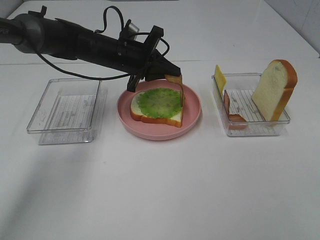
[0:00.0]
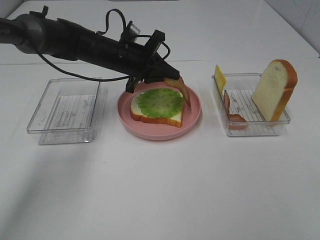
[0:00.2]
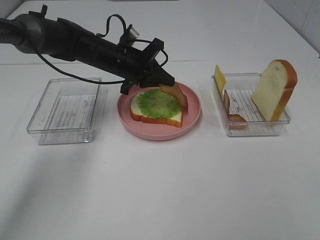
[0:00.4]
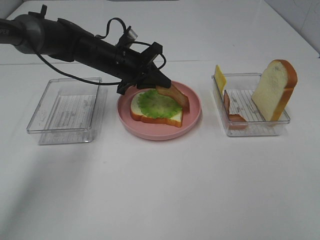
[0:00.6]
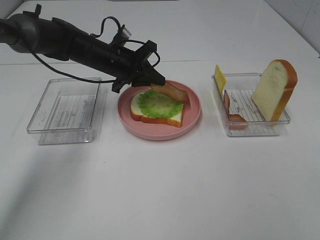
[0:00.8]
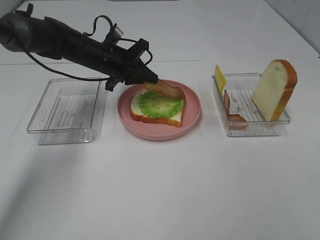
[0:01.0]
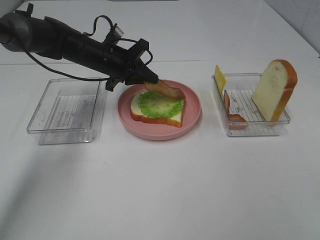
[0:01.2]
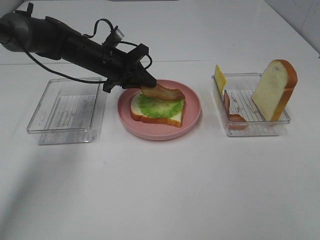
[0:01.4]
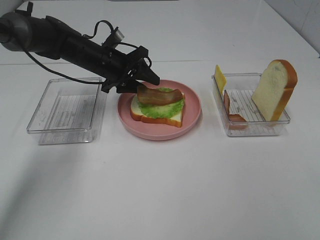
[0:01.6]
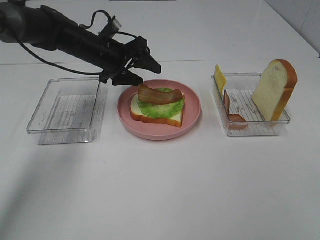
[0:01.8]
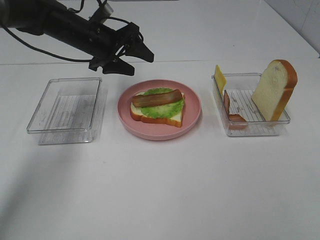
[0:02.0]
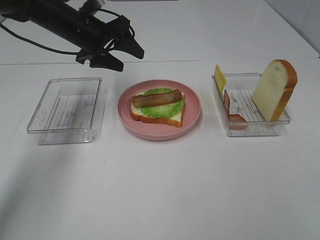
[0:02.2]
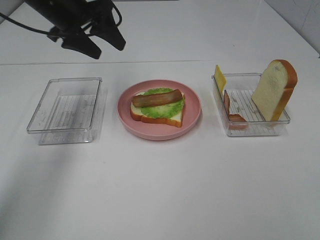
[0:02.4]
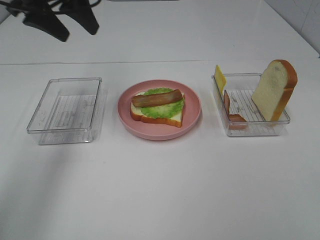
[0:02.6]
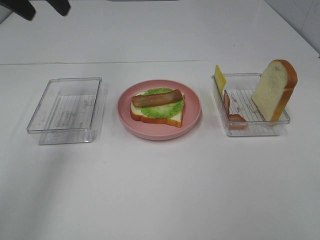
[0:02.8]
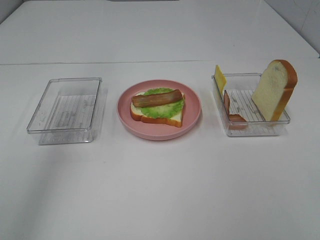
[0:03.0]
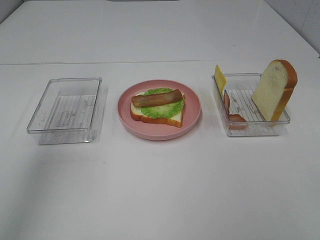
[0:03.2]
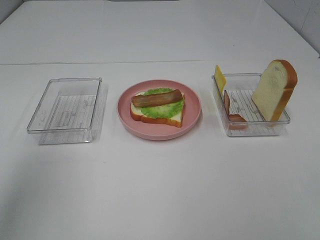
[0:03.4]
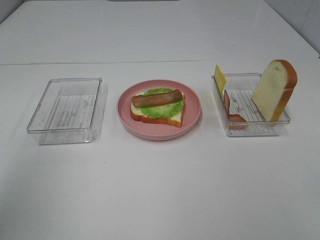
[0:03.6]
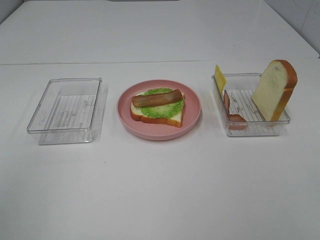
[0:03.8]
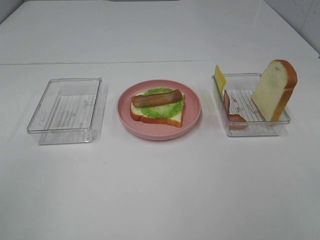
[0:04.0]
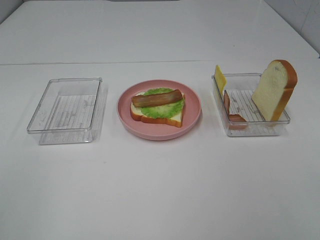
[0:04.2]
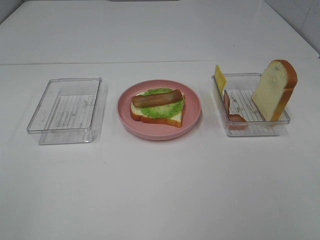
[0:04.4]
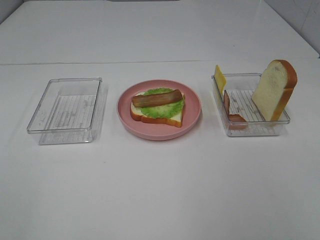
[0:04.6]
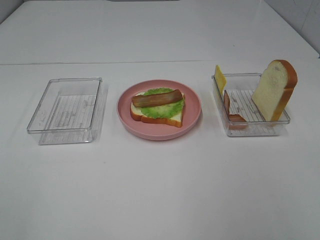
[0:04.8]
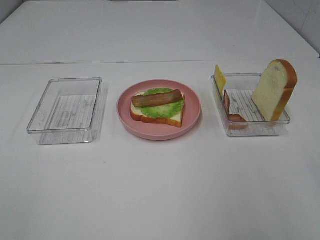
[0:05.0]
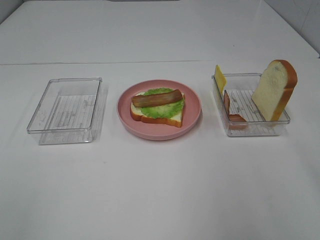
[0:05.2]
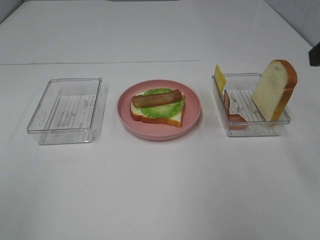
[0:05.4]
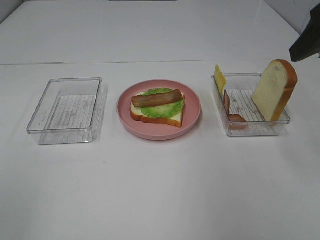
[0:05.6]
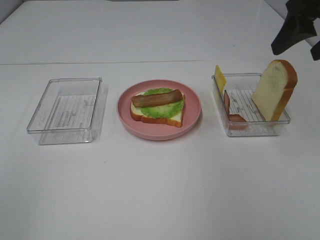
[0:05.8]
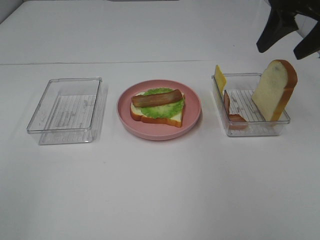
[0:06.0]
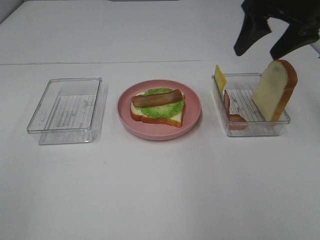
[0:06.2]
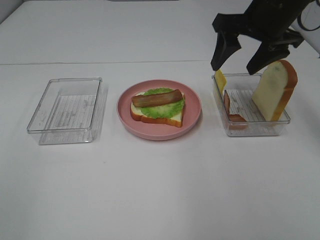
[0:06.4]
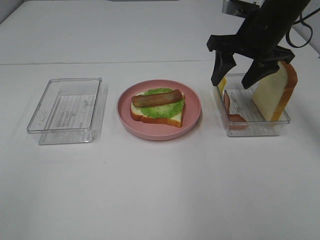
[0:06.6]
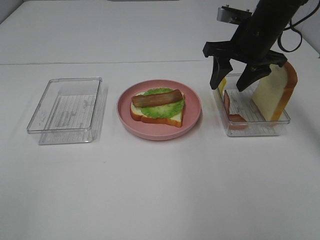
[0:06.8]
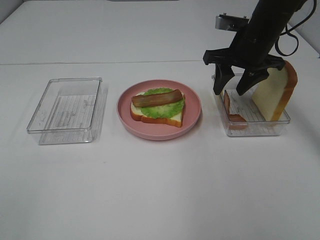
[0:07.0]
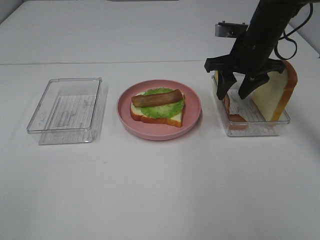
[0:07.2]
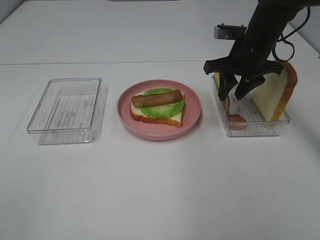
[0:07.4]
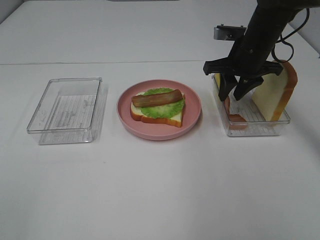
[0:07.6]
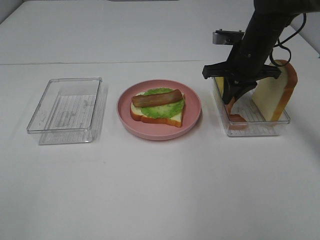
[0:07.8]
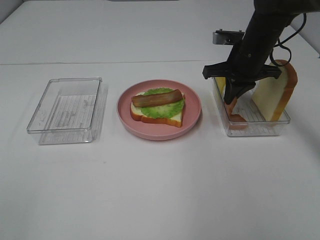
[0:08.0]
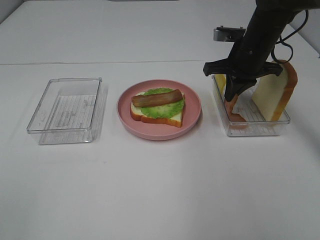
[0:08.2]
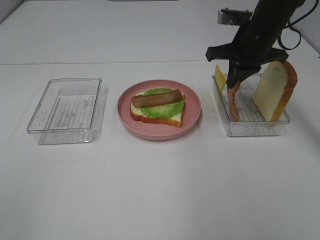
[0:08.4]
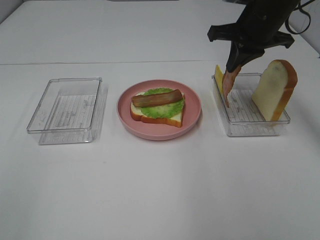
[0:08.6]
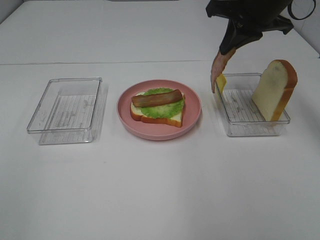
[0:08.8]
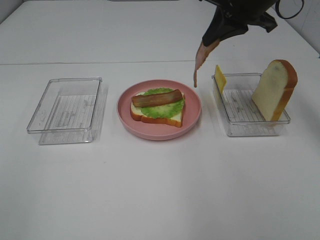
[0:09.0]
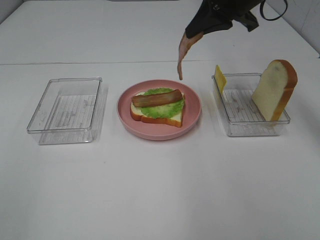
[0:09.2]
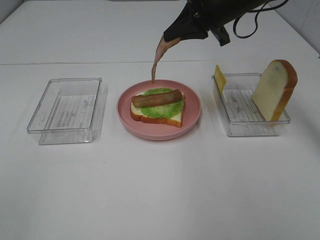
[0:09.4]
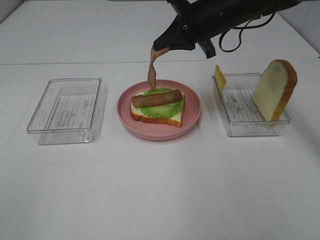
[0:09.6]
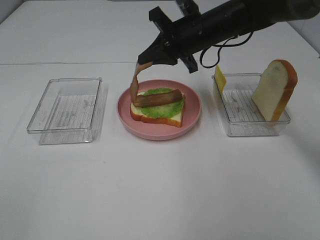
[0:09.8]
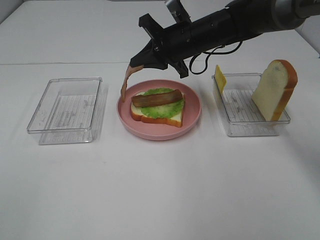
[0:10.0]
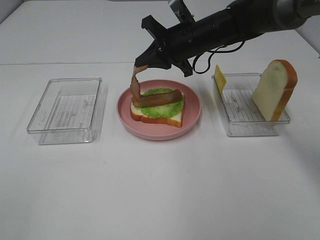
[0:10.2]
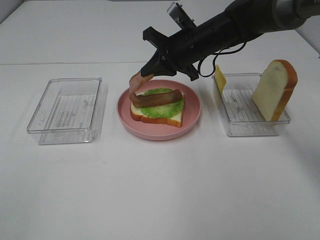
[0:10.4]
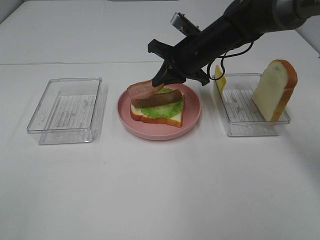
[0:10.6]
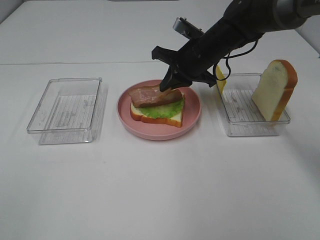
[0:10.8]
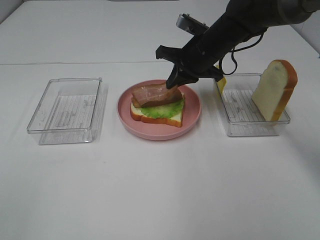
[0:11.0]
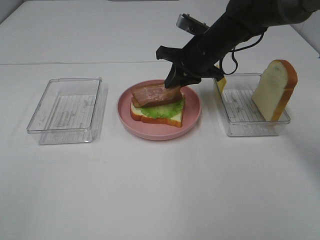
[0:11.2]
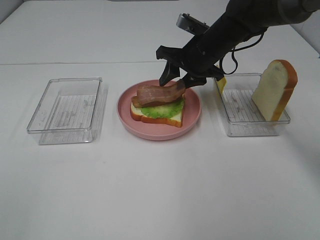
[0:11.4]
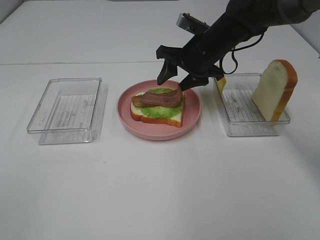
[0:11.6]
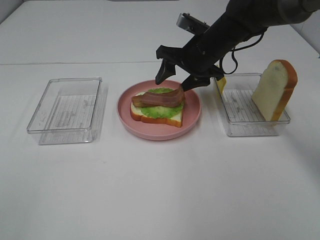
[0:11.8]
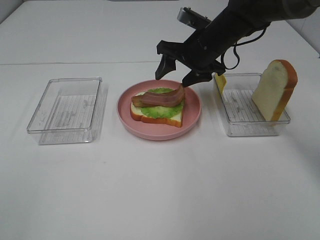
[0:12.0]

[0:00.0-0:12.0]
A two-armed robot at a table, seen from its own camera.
Task of the whole recording: Make sandwiches.
Step, 0:00.0 to 0:02.0: Left hand:place bacon on lettuce slice.
Step, 0:02.2 to 0:08.2: Right hand:grab the bacon.
0:00.0 to 0:01.6: The left gripper opens.
0:01.6 to 0:03.0: The left gripper shifts approximately 35 cm upward, backward and to the left.
0:03.0 to 0:04.4: The left gripper travels backward by approximately 30 cm.
0:04.4 to 0:06.0: The right gripper moves forward, some 35 cm.
0:06.0 to 0:07.6: The right gripper goes approximately 15 cm downward, forward and to the left, and closes up.
0:07.6 to 0:09.0: The right gripper goes roughly 10 cm upward, and closes its fingers.
0:09.0 to 0:10.4: The right gripper moves downward and to the left, roughly 15 cm.
0:10.4 to 0:12.0: The right gripper opens.

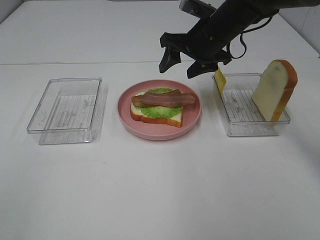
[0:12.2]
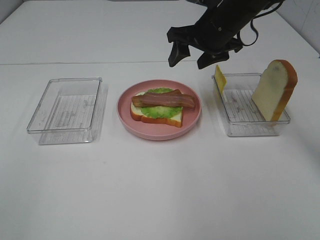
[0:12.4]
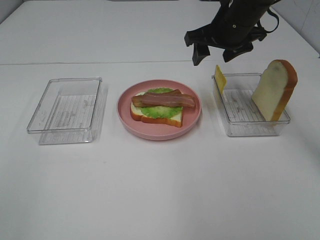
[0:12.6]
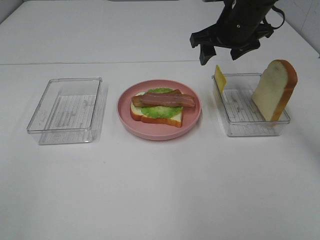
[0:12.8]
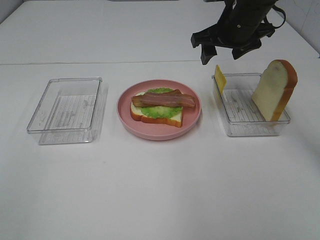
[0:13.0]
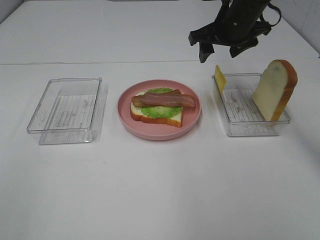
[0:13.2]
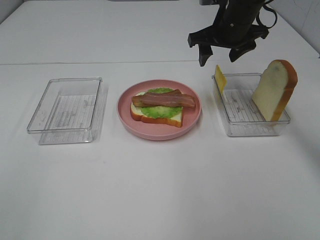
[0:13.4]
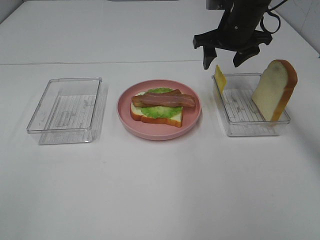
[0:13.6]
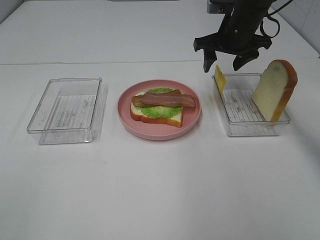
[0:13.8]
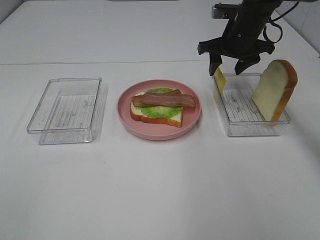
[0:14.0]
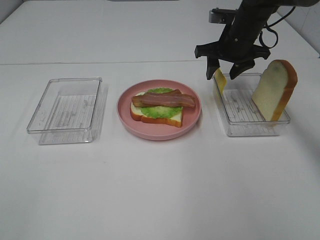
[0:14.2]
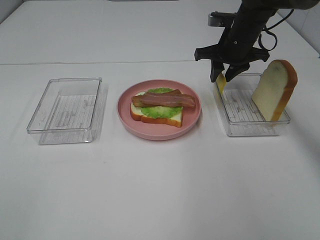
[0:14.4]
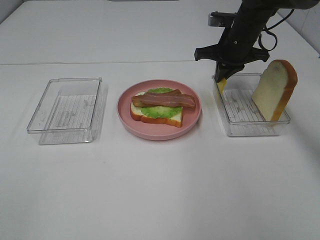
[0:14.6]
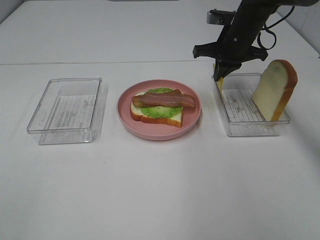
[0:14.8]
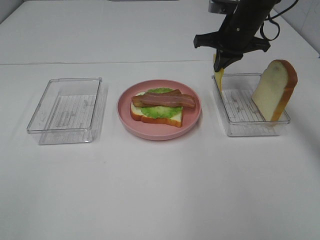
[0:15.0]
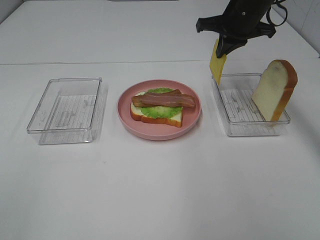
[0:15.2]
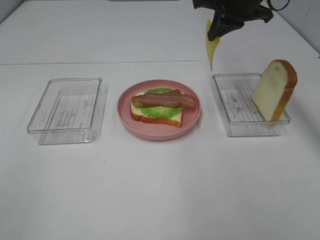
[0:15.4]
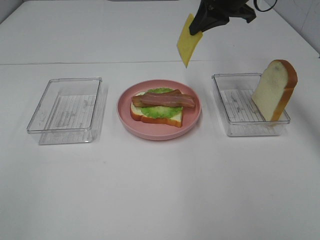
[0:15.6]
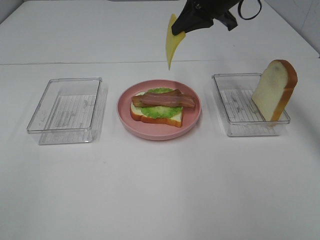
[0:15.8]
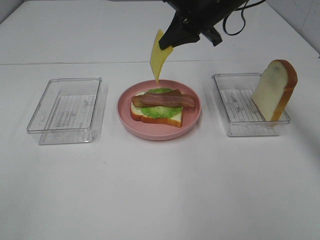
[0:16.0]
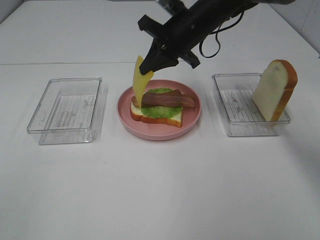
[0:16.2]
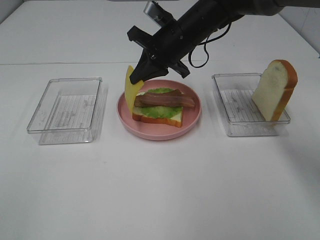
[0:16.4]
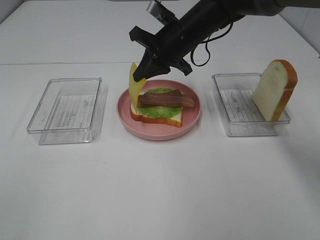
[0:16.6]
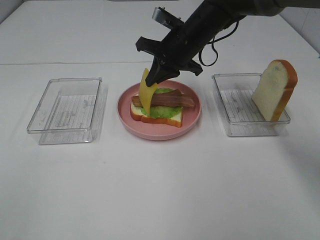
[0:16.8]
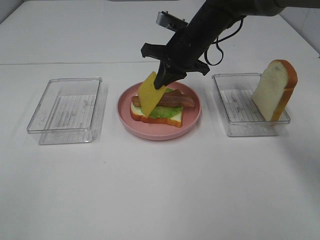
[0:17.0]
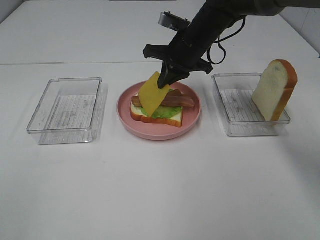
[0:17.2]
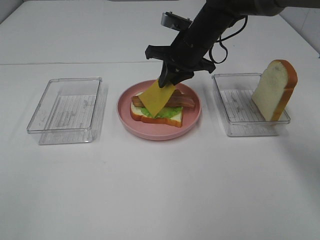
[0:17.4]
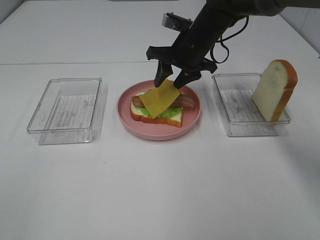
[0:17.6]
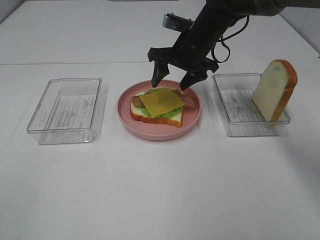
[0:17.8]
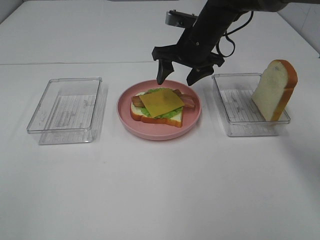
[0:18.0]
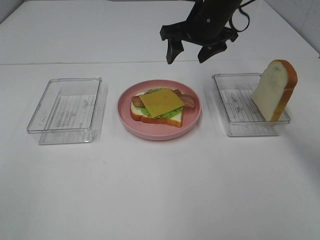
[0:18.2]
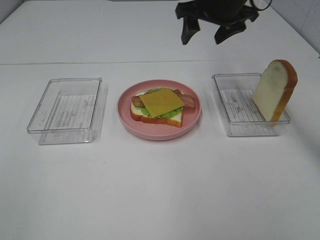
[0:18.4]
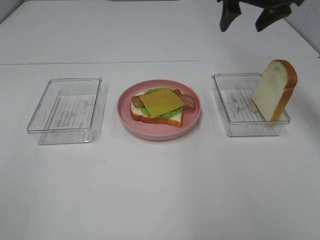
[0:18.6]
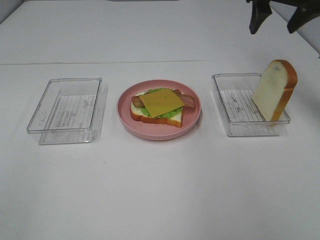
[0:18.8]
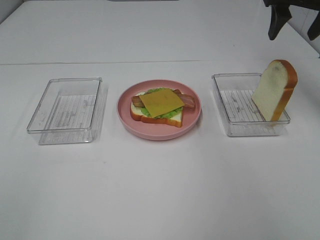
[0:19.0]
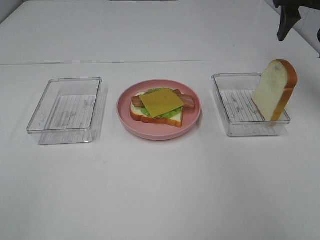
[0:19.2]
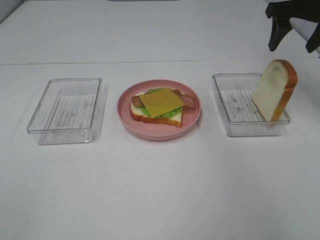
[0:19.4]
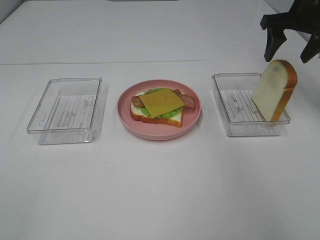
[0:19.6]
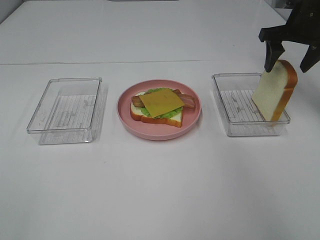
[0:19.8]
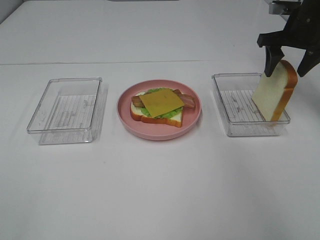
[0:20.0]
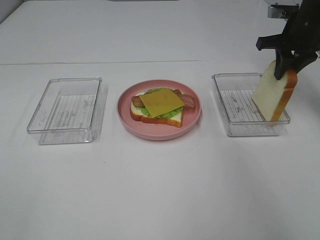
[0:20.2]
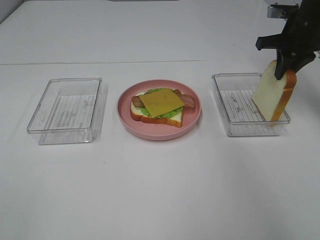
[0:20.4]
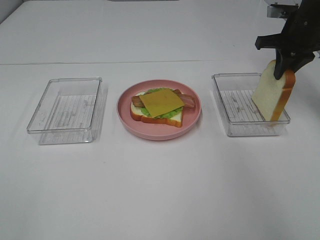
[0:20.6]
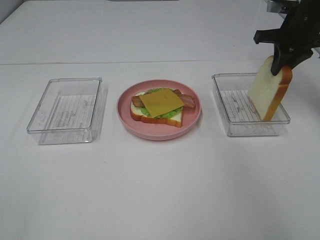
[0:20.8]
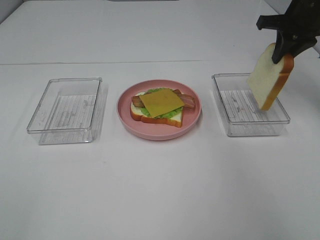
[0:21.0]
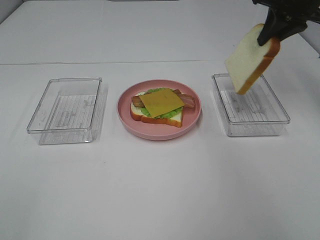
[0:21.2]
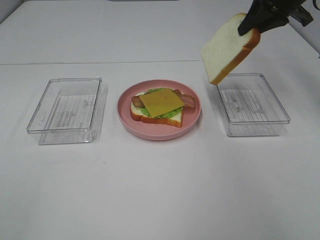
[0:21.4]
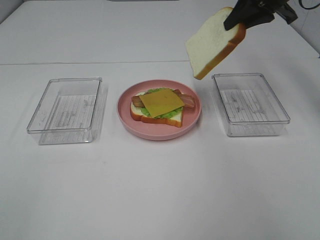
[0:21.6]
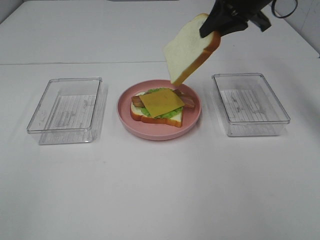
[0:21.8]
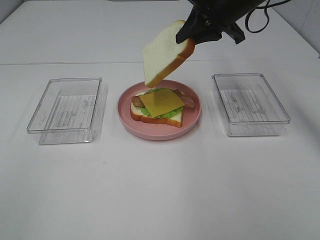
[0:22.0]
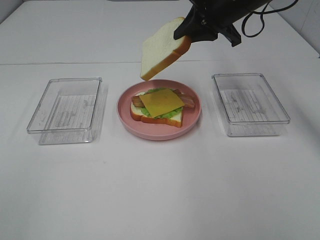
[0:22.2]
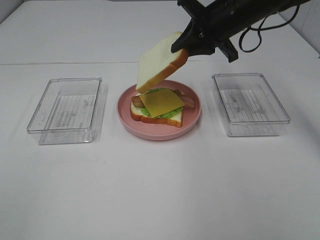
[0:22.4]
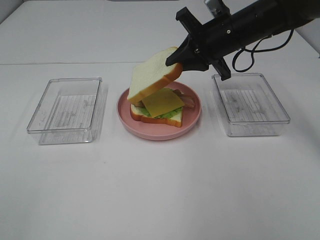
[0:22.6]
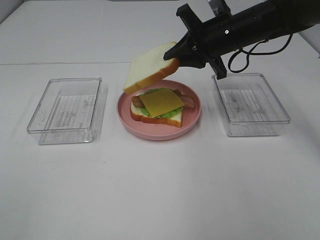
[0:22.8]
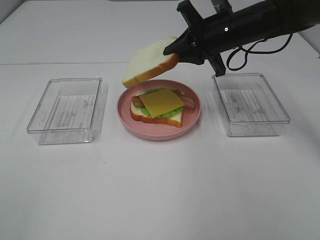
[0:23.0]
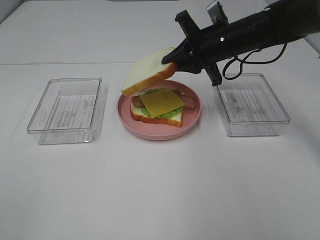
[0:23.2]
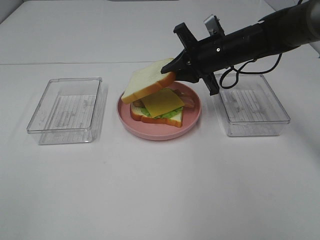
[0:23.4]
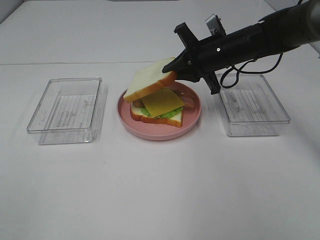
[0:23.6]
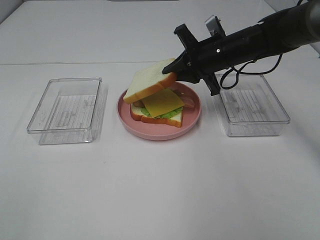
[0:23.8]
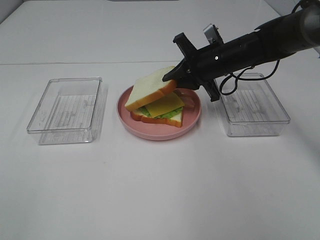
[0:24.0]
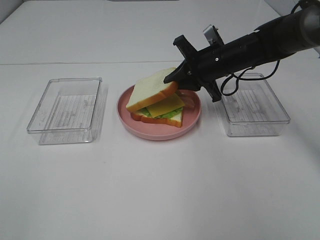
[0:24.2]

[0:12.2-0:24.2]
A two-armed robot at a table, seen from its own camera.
Task of the whole recording: Make sandwiches.
Step, 0:12.2 to 0:15.0: Right hand:grab the cheese slice.
Step, 0:15.2 to 0:17.8: Right hand:place the cheese slice on top of the bacon.
Step, 0:18.0 to 0:20.8: Right hand:grab the bread slice.
0:12.2 to 0:13.8: The right gripper moves to the right, roughly 5 cm.
0:13.8 to 0:15.2: The right gripper closes its fingers.
0:15.2 to 0:16.6: The right gripper moves to the left and downward, some 10 cm.
0:16.6 to 0:18.2: The right gripper shifts by some 5 cm, and opens its fingers.
0:18.2 to 0:19.8: The right gripper shifts approximately 20 cm to the right.
0:19.8 to 0:21.2: The right gripper heads upward, covering some 5 cm, and closes its fingers.
0:21.2 to 0:22.6: The right gripper goes approximately 15 cm to the left and downward.
0:22.6 to 0:24.2: The right gripper moves downward, approximately 5 cm.
